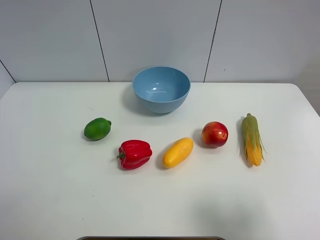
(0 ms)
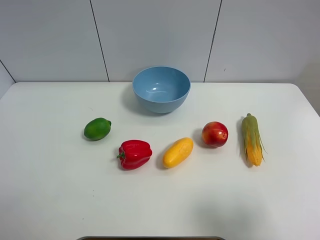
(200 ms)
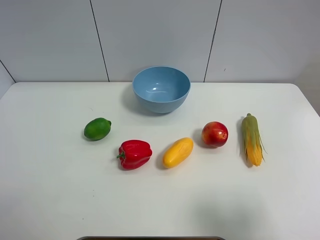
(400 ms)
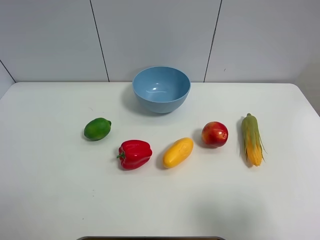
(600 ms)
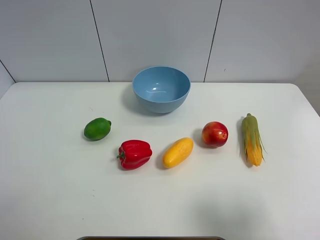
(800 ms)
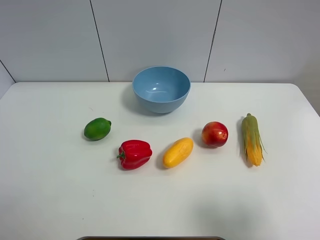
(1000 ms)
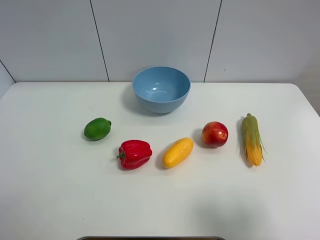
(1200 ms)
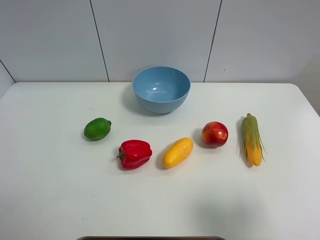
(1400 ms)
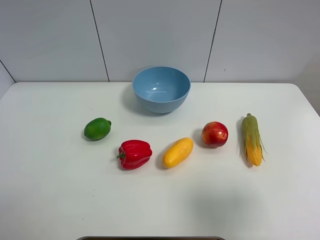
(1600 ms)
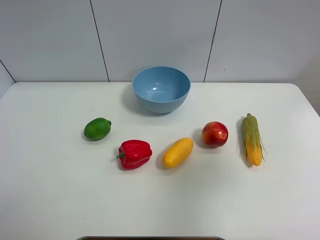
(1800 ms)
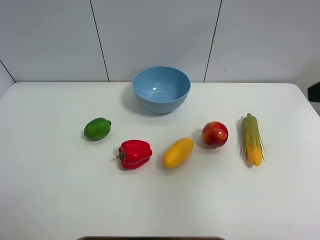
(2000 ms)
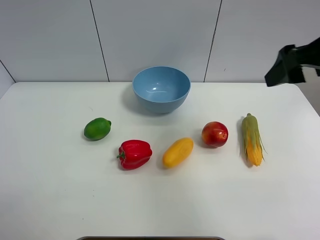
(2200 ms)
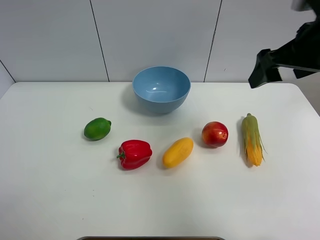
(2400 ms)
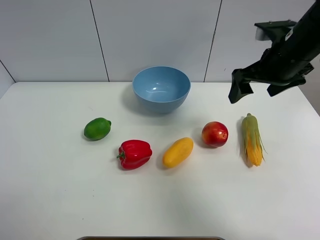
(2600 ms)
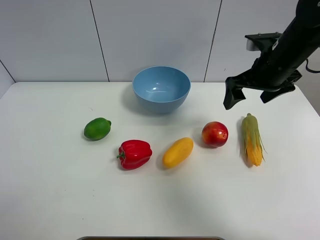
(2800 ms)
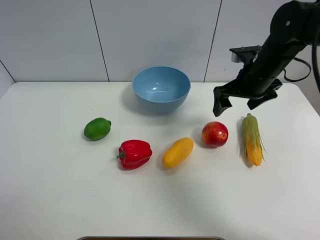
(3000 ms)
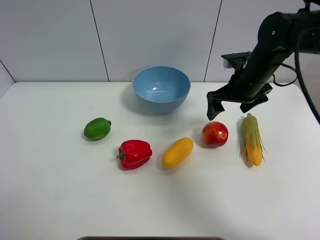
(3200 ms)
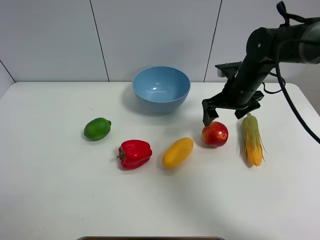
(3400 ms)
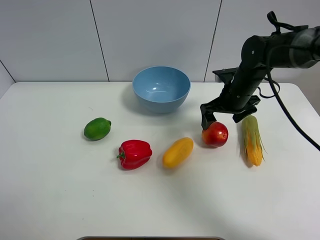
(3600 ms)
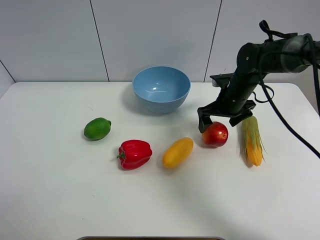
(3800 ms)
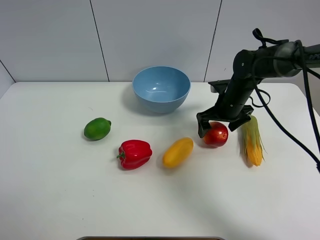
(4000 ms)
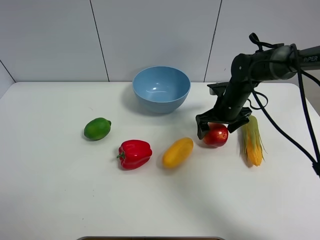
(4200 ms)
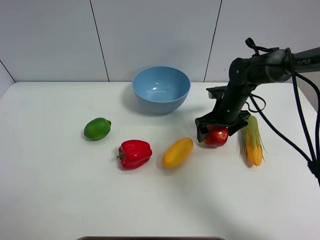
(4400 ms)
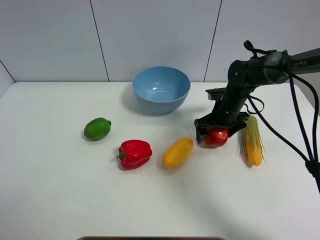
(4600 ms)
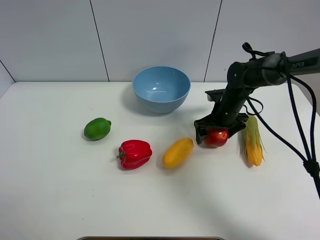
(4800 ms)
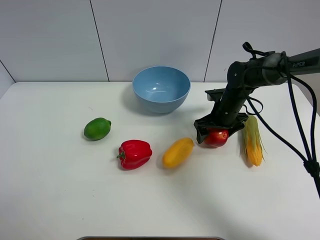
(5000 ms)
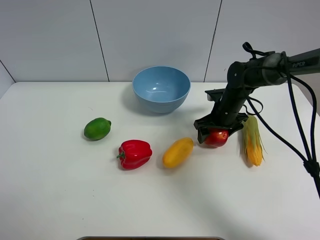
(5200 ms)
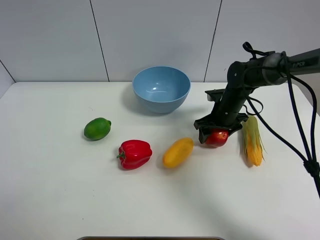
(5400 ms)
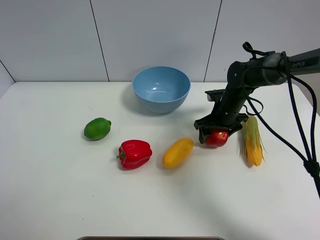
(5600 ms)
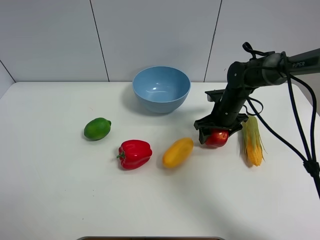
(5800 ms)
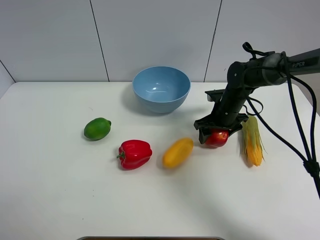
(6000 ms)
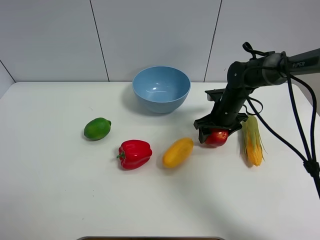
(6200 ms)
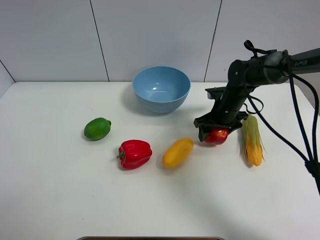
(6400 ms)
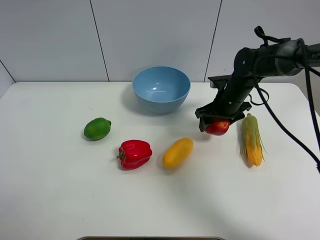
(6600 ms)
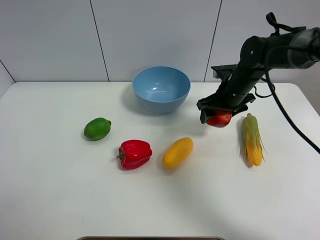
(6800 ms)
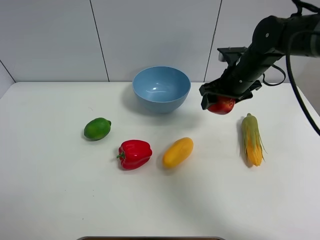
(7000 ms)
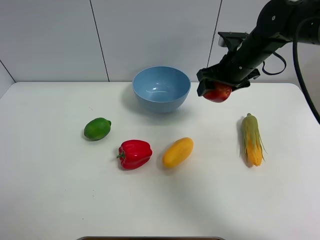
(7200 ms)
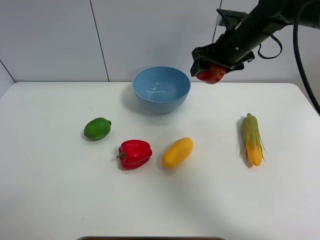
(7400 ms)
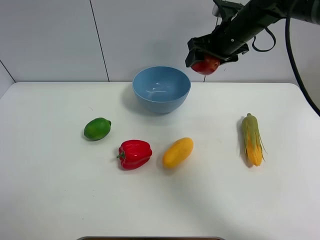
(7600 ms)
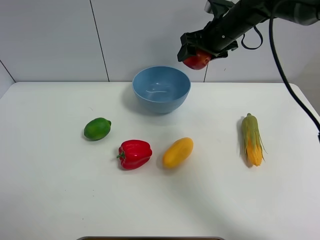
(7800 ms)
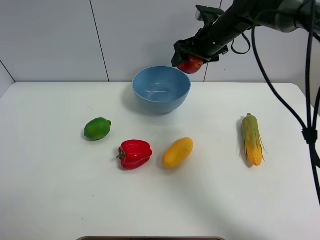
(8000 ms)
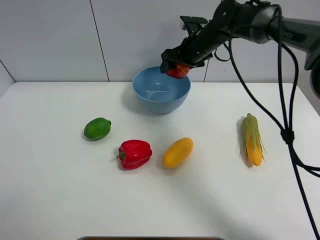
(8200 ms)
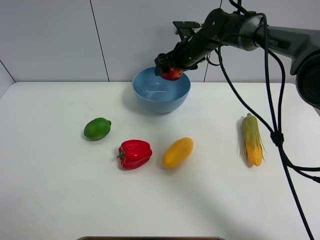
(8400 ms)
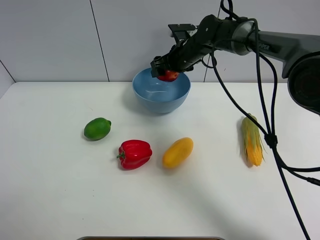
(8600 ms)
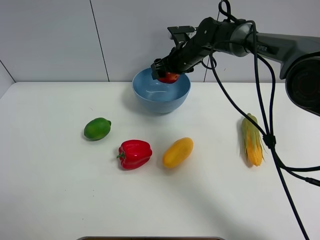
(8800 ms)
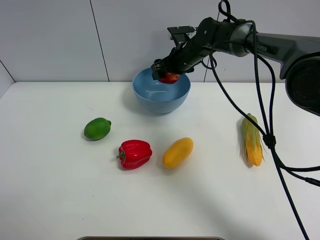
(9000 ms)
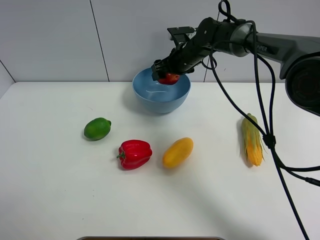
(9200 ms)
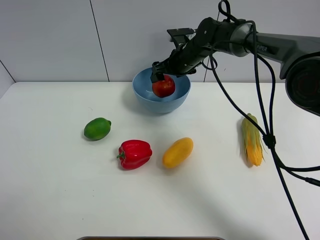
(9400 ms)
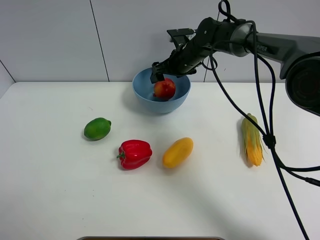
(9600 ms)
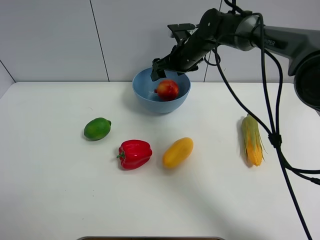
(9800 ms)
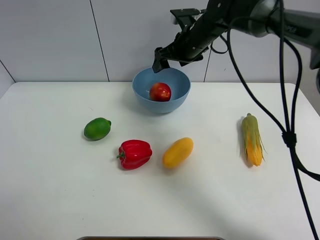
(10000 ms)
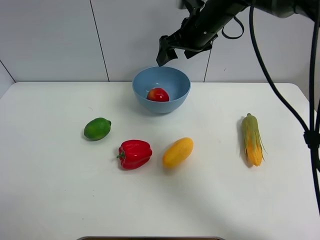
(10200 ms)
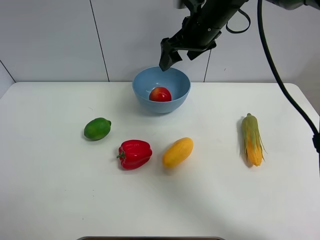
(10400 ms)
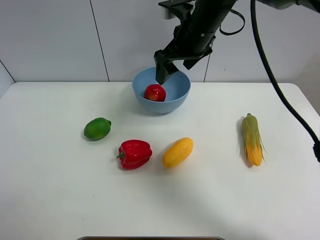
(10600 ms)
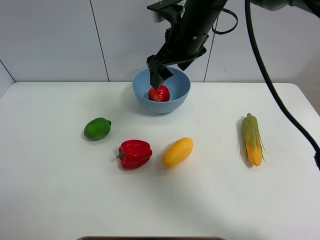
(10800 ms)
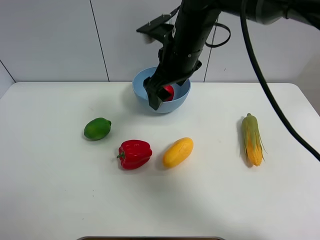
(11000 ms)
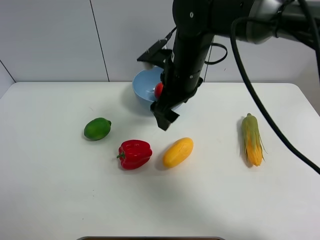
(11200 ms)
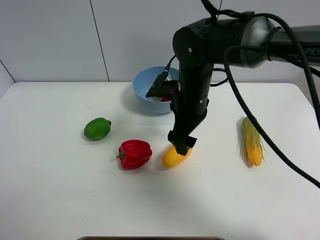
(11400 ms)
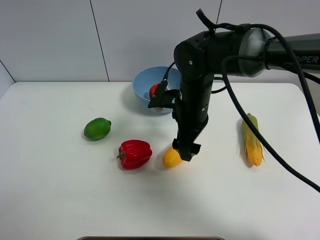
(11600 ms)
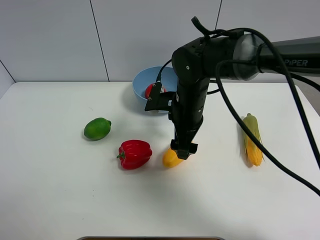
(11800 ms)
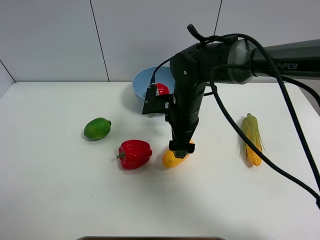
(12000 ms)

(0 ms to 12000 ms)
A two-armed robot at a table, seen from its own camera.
Task of the whole recording: Put the three fruits on the table into a bowl.
Step, 0 ms - 5400 ms: Grasp the pomegranate with right gripper.
Step, 5600 ms - 9600 ms: Place the pomegranate in the blue bowl with right gripper.
0 ms - 1600 ms: The grippers move only a little.
1600 ms - 3000 ms: The right gripper is displaced forward by about 30 cm.
3000 ms - 4400 ms: The right gripper travels downward by approximately 15 cm.
4400 ms - 6000 ms: The right gripper closes up.
6000 ms - 7600 ms: The right gripper travels upward by some 20 cm.
7600 ms - 9000 ms: The right gripper travels downward, to the left and forward by some 15 cm.
9000 ms - 10400 ms: The right gripper heads upward and backward, covering about 15 cm, and opens its fingers.
10400 ms - 12000 ms: The right gripper moves downward and backward, about 15 cm.

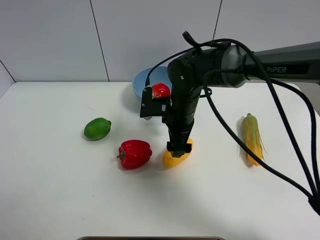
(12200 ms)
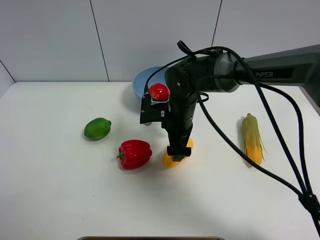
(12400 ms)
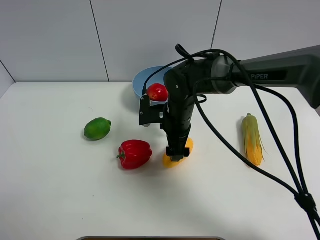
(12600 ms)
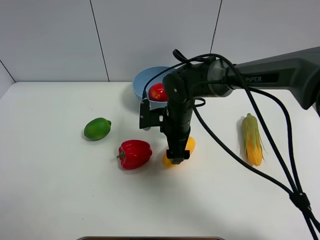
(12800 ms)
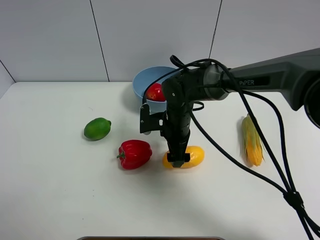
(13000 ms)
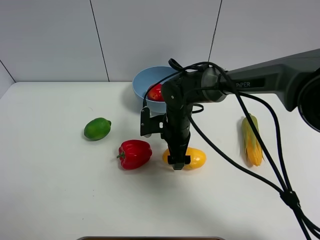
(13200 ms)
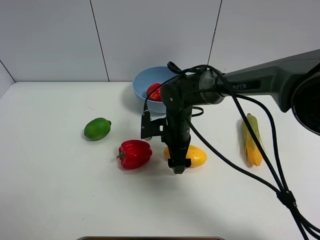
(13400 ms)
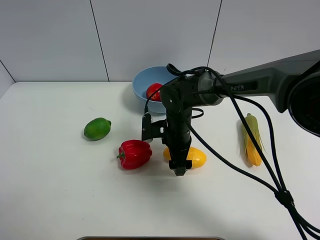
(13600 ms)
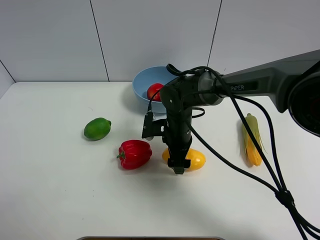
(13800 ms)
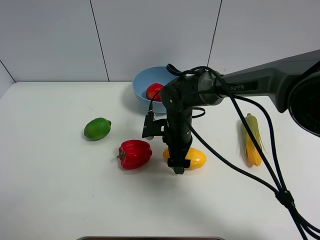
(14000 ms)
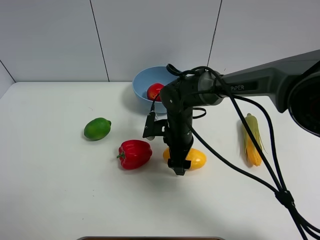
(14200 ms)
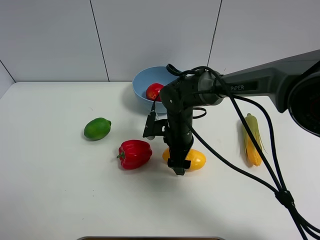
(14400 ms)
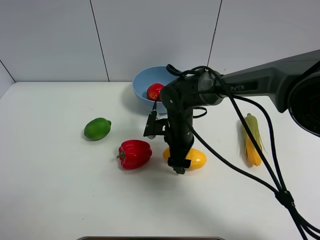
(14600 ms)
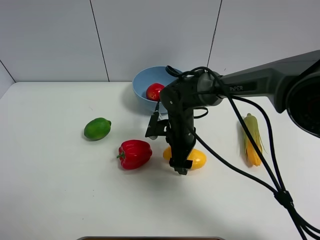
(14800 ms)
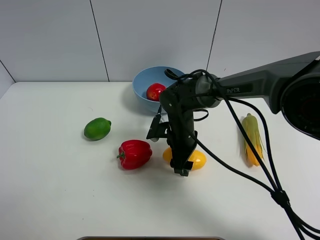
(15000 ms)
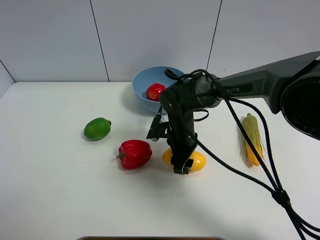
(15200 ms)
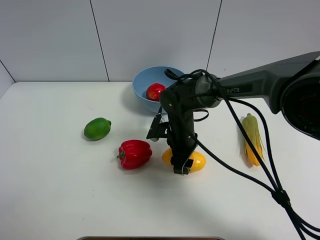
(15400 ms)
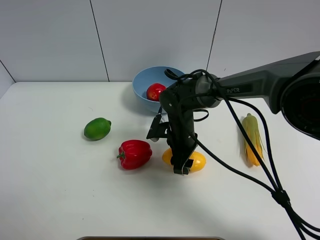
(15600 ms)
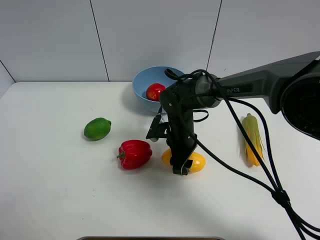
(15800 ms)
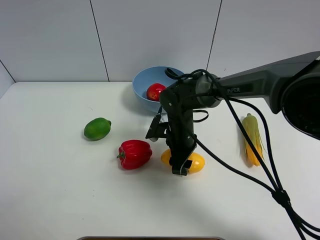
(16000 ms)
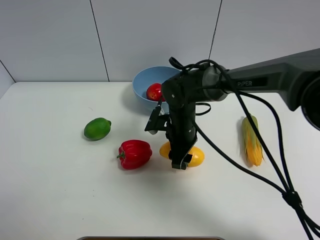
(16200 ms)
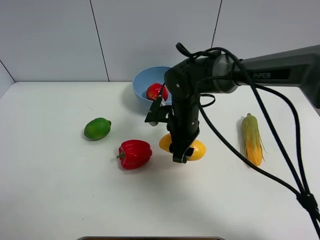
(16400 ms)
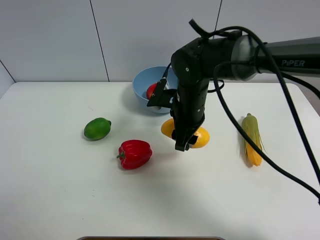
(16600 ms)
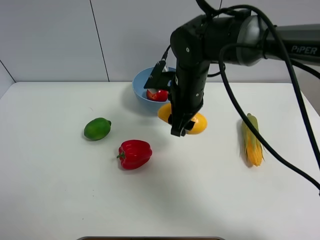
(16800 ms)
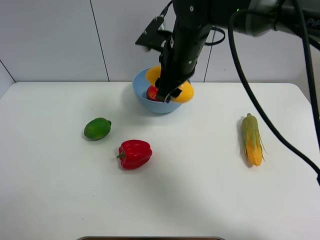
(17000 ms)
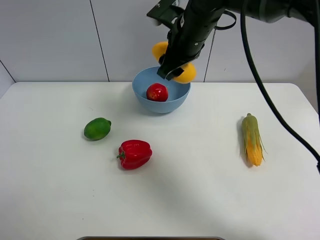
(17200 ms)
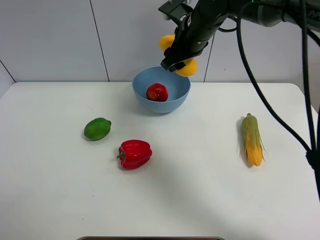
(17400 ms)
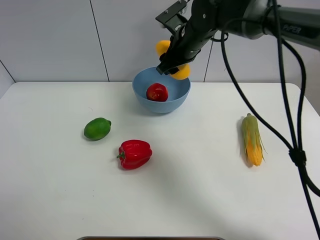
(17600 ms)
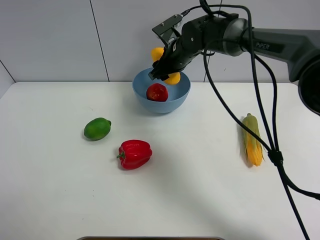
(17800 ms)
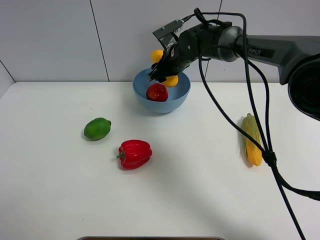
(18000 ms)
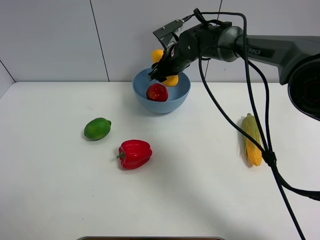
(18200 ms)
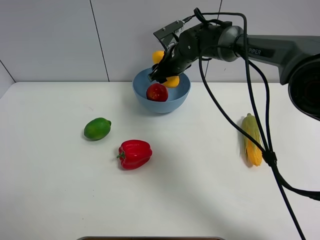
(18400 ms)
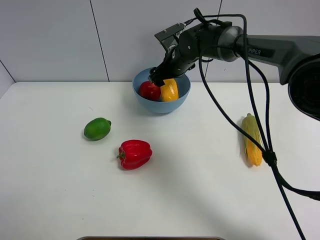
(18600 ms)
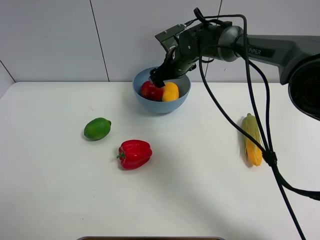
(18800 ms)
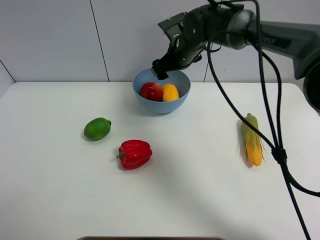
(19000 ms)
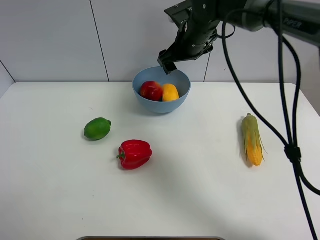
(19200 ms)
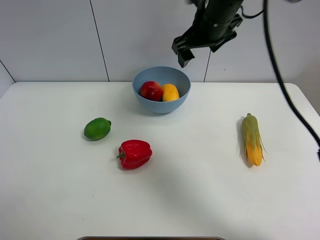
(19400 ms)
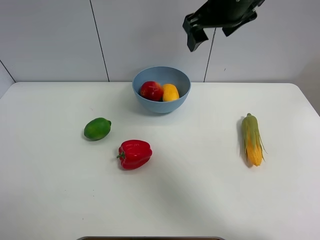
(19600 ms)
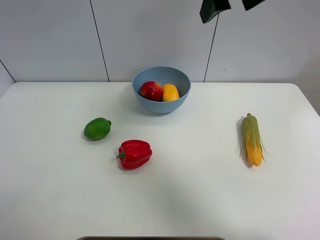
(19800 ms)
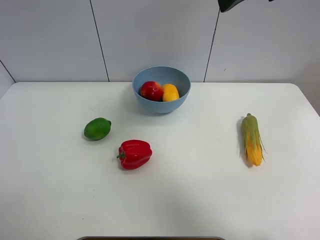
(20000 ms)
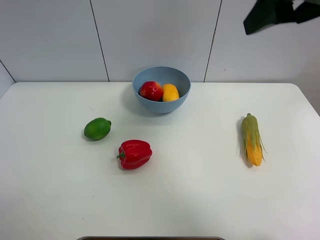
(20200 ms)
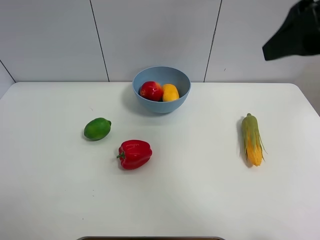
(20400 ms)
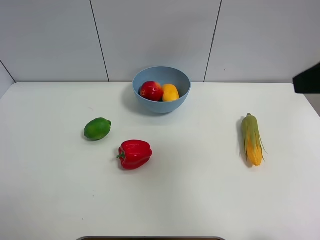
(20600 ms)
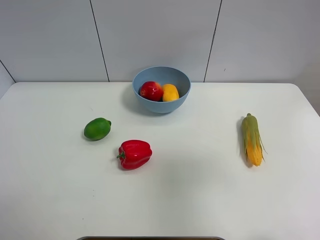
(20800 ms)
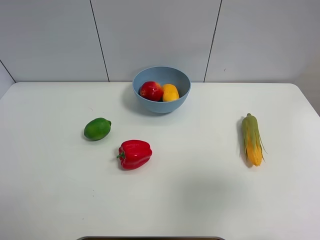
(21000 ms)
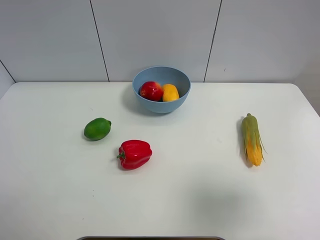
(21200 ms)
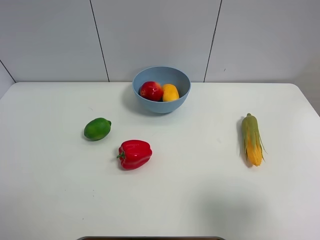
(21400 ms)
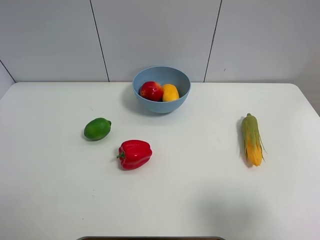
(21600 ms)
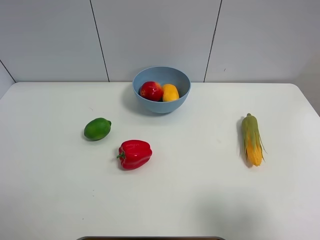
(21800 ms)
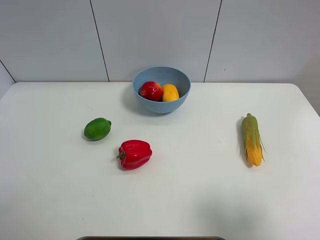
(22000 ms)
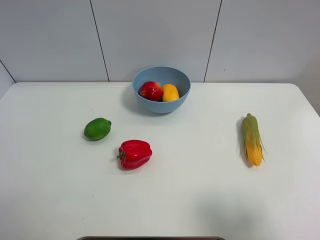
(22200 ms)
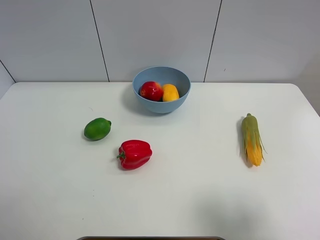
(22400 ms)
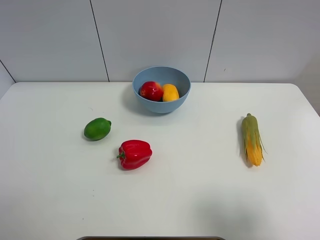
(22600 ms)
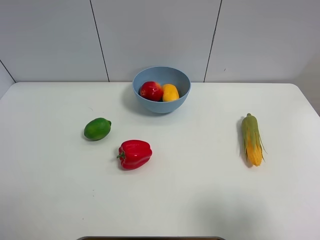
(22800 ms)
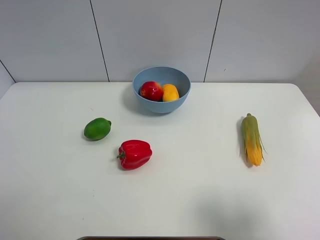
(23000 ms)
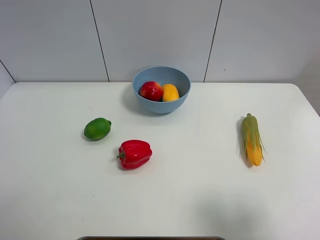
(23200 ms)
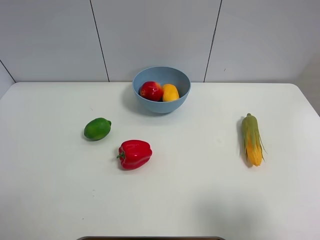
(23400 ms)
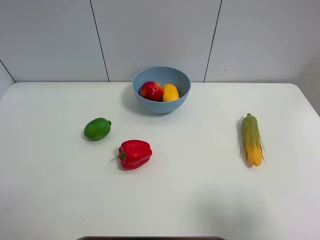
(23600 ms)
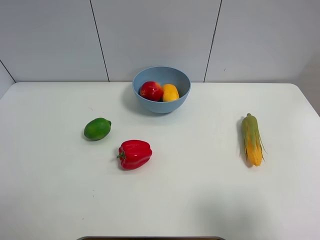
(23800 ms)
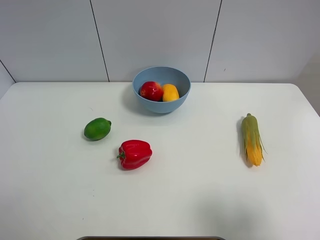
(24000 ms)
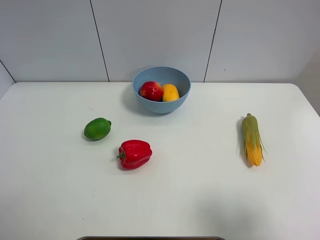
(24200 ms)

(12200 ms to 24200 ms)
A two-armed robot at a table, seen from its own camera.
Task of the whole recording: Put the three fruits on the table into a bowl.
Step, 12200 ms - 15200 ms: Grasp the mango with right gripper.
Step, 15400 ms - 18800 ms: Place the mango in the blue bowl with right gripper.
12200 ms - 13800 ms: The right gripper is displaced downward by about 5 cm.
13800 ms - 15200 ms: The right gripper closes its fingers.
15200 ms - 16600 ms: The right gripper heads upward, covering some 10 cm.
16600 ms - 18200 ms: The right gripper heads forward, covering approximately 15 cm.
18200 ms - 19800 ms: The right gripper moves upward and backward, about 30 cm, and opens.
19800 ms - 21200 ms: The right gripper travels backward, to the right and downward by some 35 cm.
21200 ms - 22600 ms: The right gripper shifts by roughly 5 cm.
